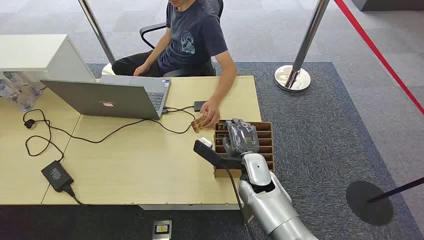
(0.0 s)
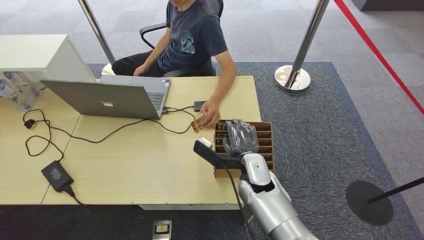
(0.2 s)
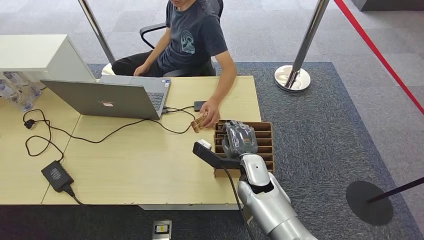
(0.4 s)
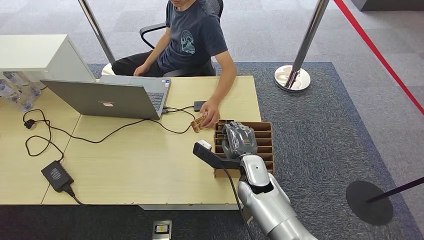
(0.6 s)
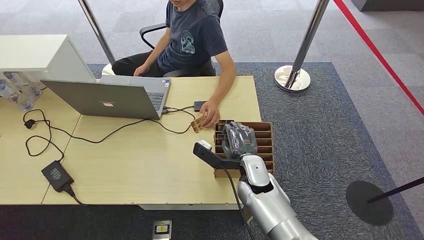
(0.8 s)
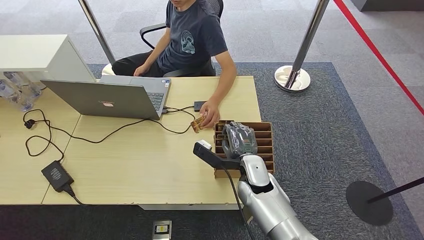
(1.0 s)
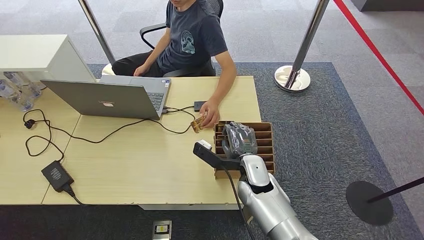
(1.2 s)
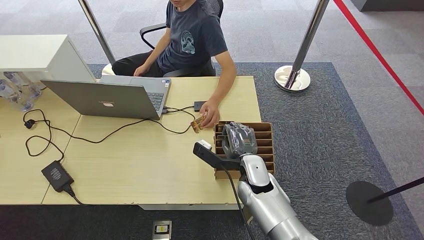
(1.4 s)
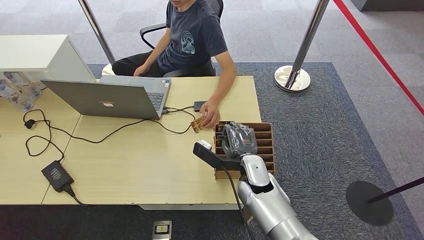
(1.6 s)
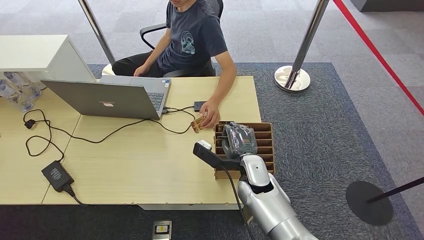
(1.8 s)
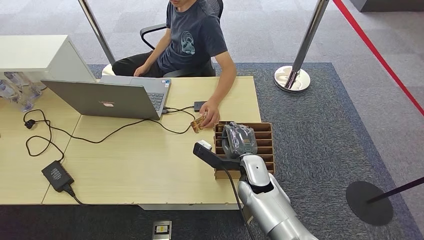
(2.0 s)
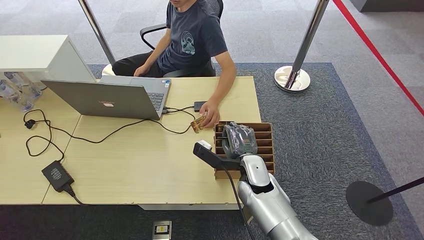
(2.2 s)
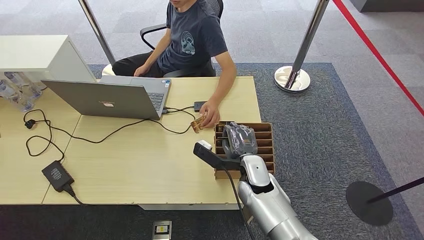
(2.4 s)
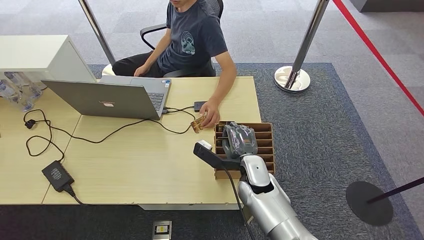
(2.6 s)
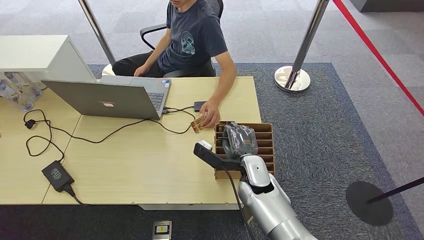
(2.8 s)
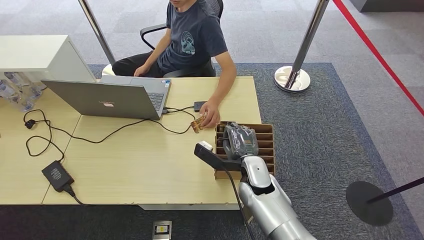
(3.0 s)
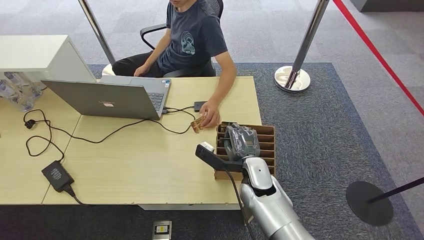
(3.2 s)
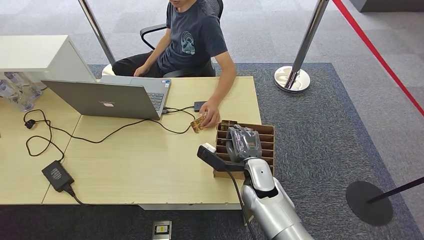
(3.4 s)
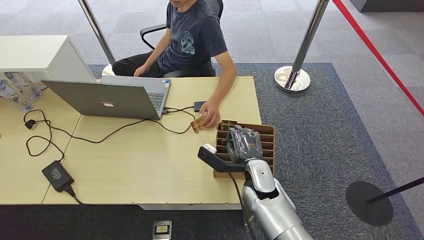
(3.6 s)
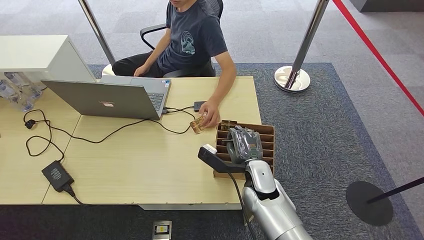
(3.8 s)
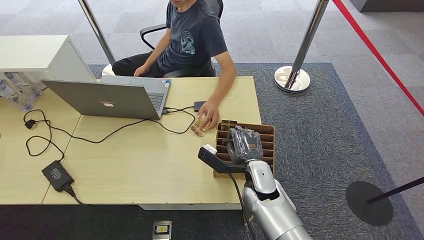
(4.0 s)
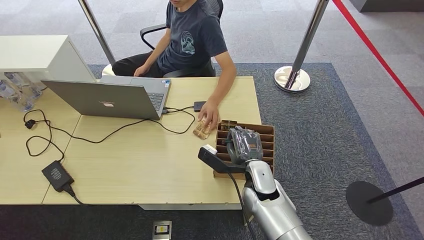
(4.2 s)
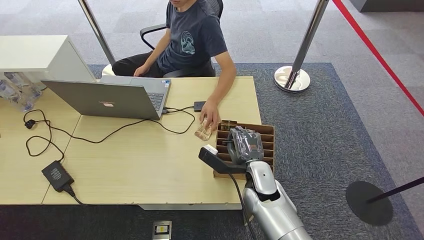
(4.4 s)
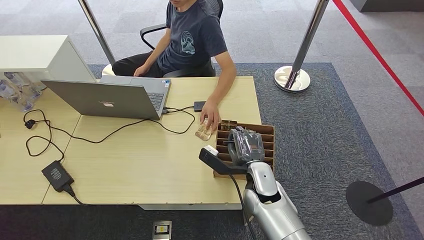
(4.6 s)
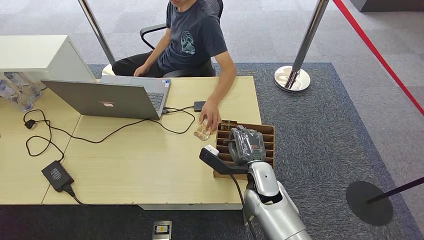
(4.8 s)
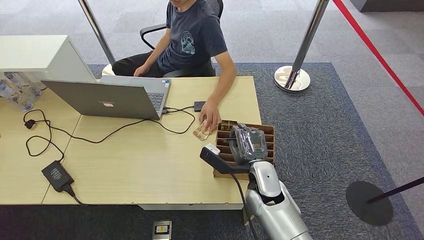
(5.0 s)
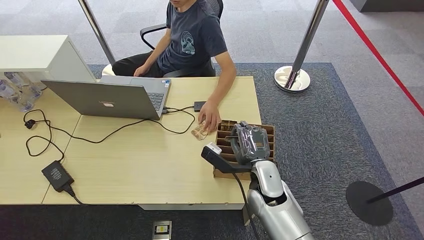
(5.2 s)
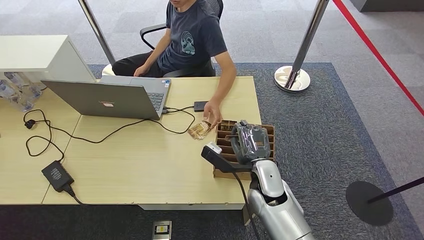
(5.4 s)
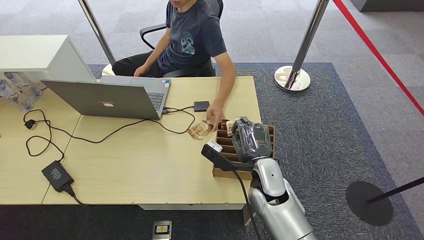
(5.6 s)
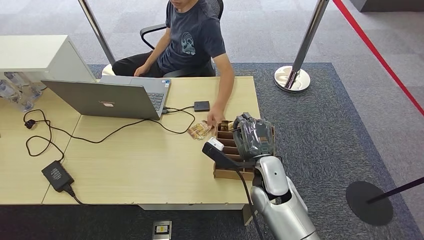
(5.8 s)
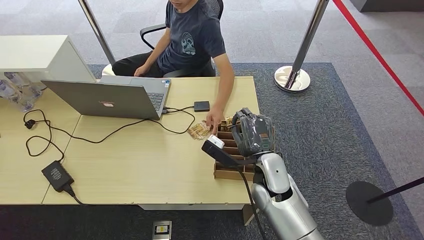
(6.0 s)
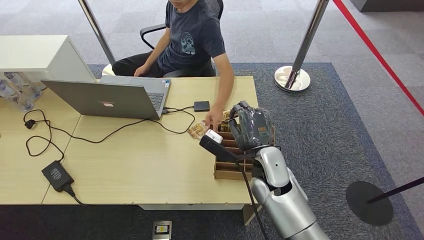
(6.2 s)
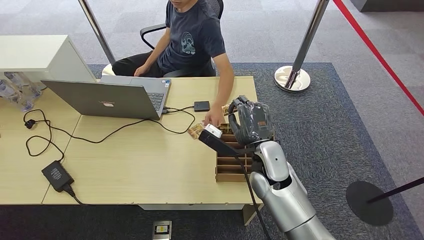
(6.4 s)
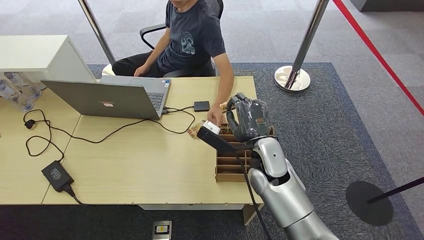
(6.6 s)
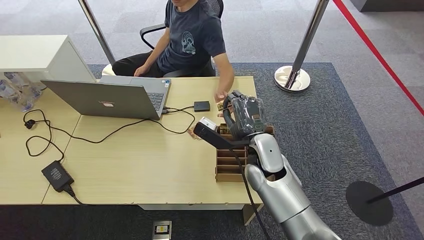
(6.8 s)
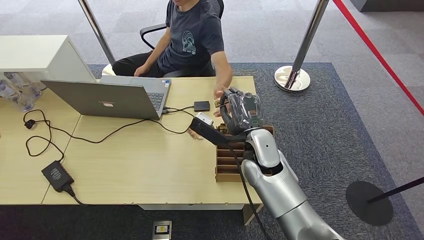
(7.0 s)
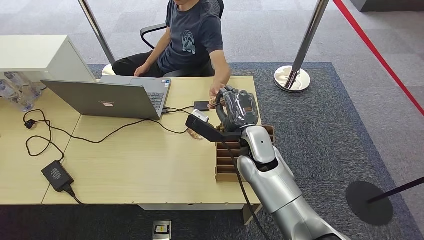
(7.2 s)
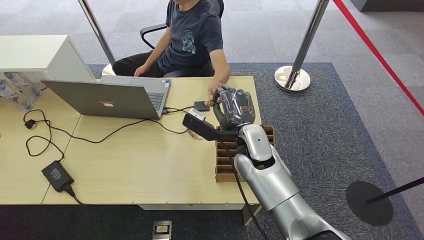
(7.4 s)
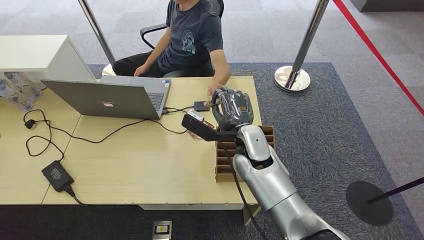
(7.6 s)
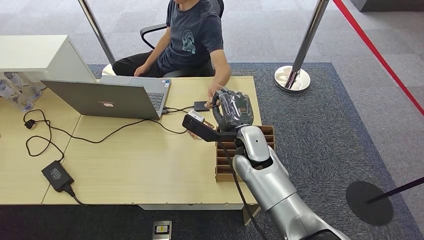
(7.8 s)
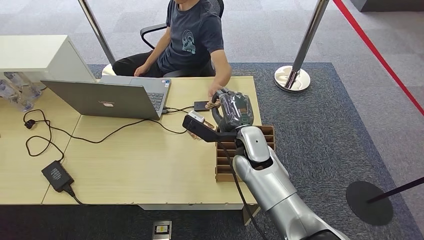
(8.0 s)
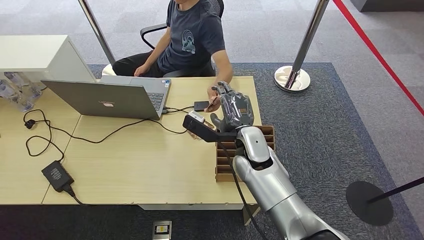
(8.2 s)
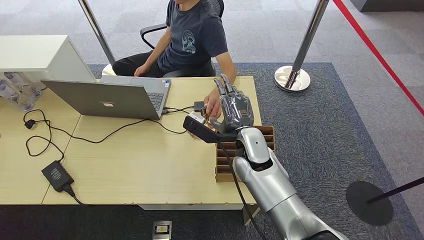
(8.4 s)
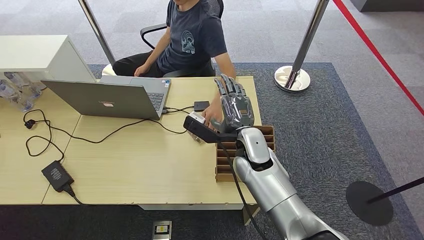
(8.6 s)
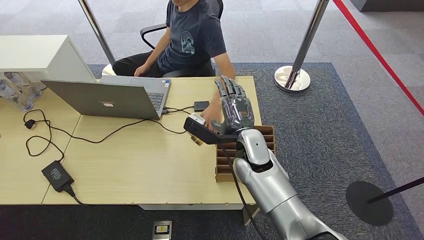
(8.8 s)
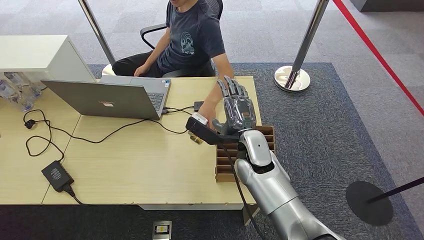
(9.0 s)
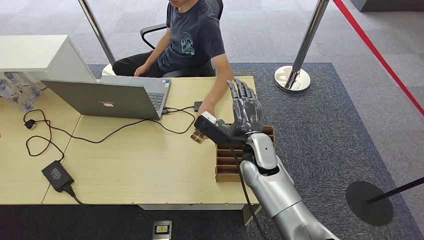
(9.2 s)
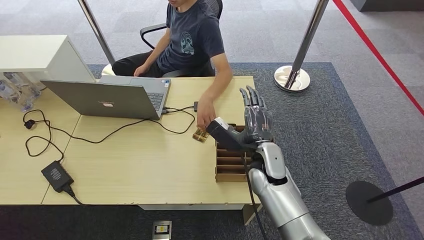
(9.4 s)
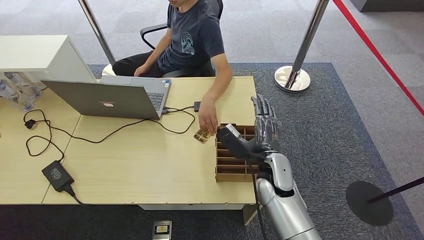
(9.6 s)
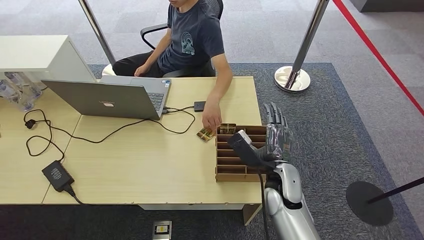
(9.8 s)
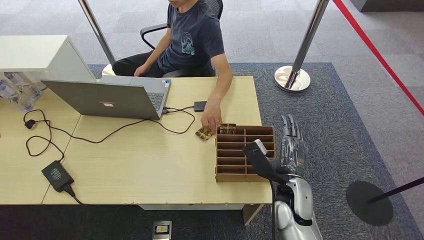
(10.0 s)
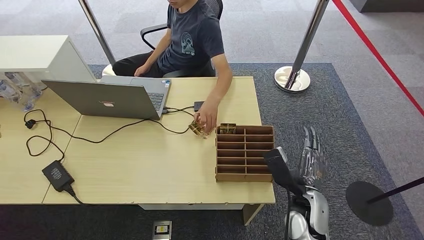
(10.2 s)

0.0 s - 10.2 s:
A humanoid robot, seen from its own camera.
Step, 0.0 s - 5.4 s: Pick up the room card from the card holder.
Step, 5.8 s - 10.2 s: Hand the room card to the target.
1.4 s - 3.0 s: The two hands keep their place.
3.0 s - 5.8 s: The hands move only a little.
5.8 s - 7.2 s: The right hand is displaced forward and upward by roughly 10 cm.
7.2 s - 8.8 s: The hands make only small movements.
8.8 s - 10.2 s: The right hand is displaced to the right, backward and downward by some 20 cm.

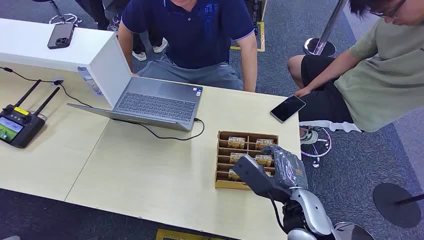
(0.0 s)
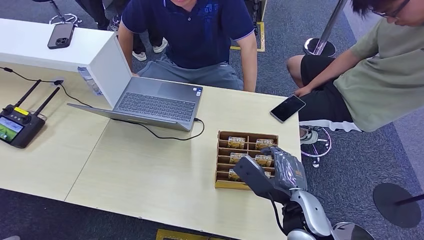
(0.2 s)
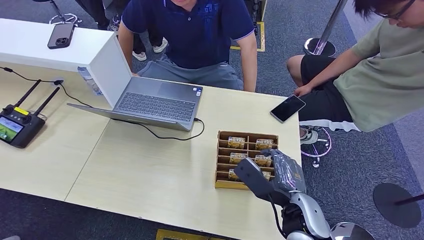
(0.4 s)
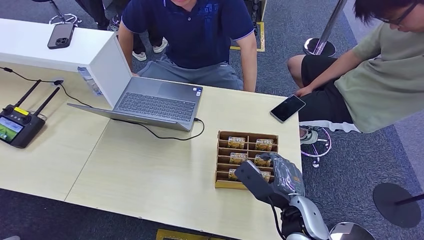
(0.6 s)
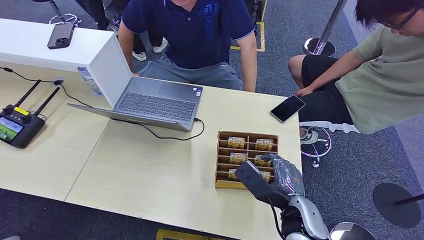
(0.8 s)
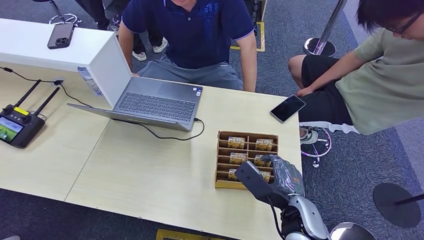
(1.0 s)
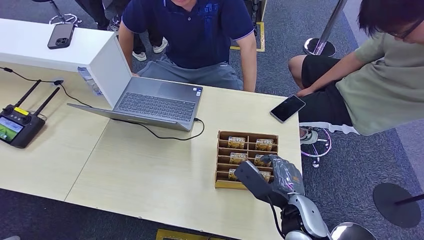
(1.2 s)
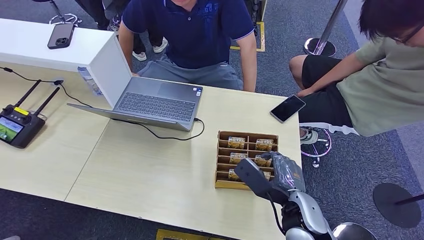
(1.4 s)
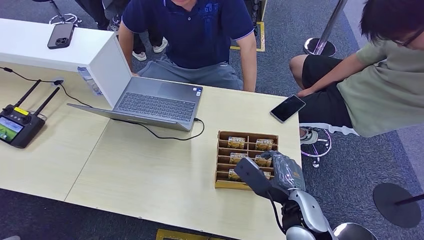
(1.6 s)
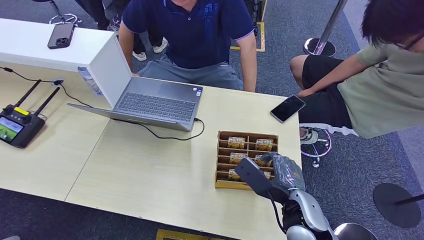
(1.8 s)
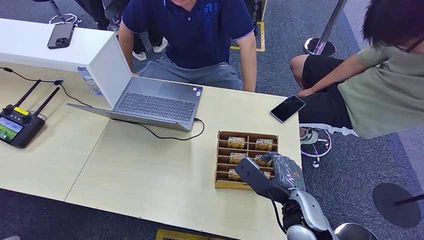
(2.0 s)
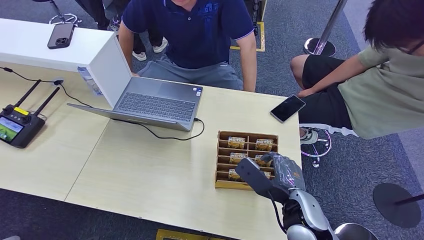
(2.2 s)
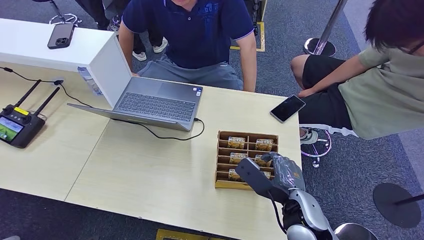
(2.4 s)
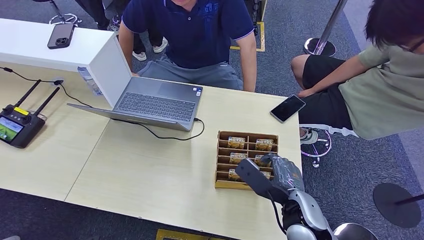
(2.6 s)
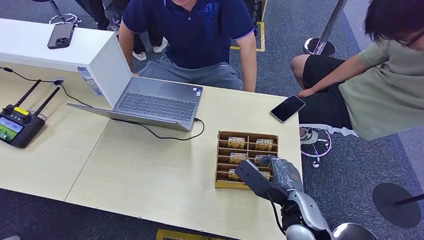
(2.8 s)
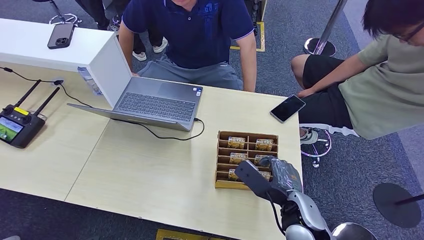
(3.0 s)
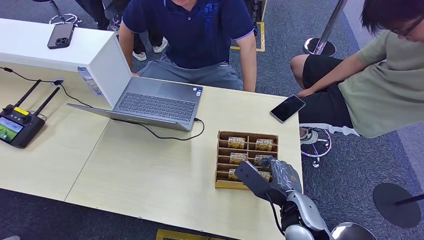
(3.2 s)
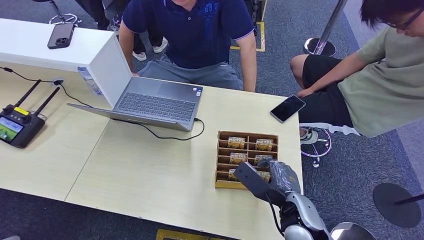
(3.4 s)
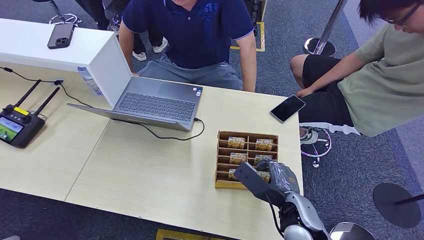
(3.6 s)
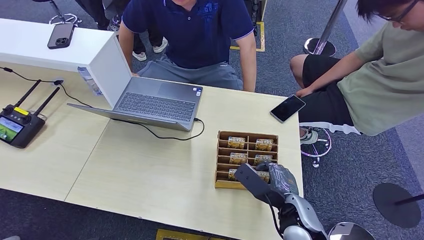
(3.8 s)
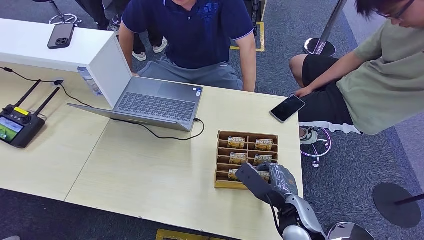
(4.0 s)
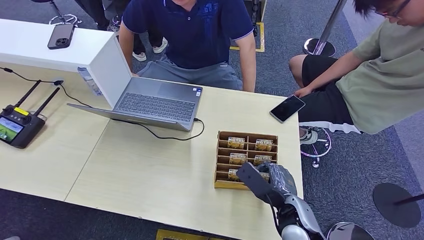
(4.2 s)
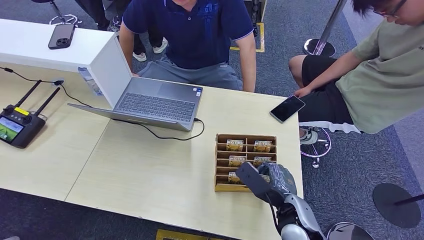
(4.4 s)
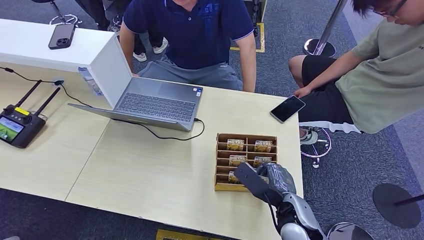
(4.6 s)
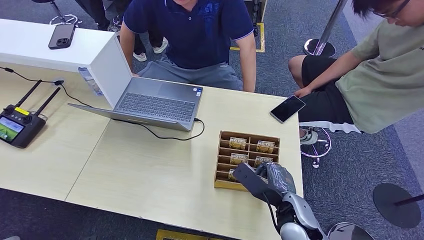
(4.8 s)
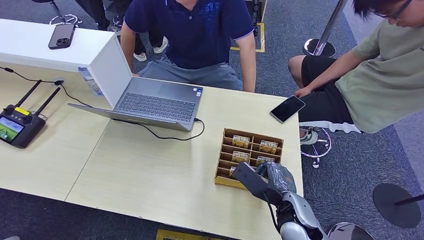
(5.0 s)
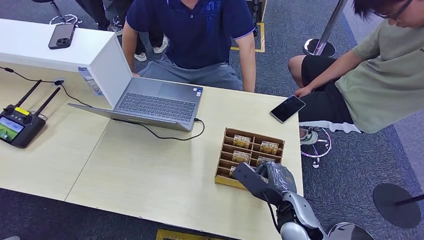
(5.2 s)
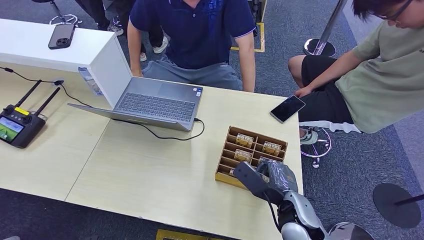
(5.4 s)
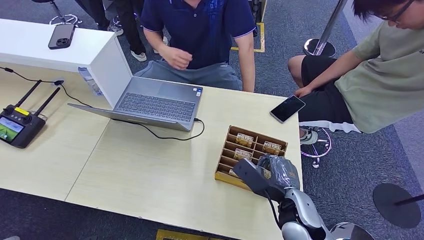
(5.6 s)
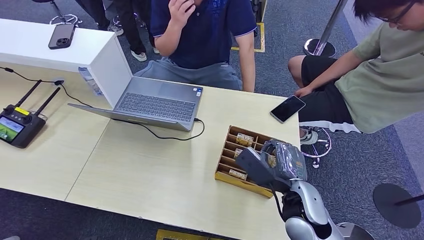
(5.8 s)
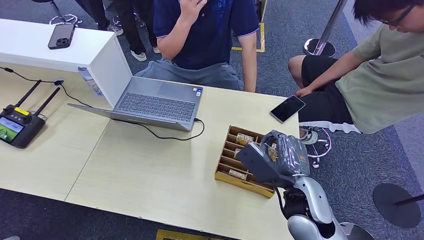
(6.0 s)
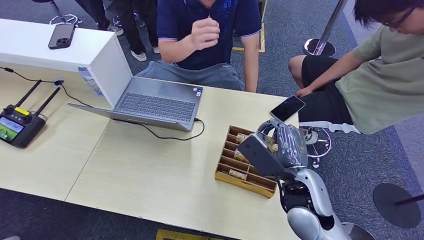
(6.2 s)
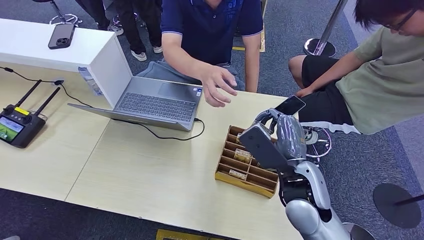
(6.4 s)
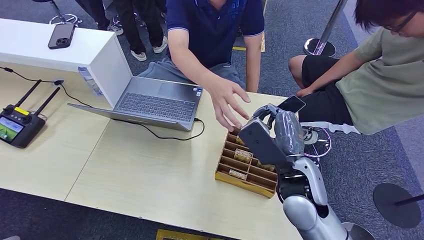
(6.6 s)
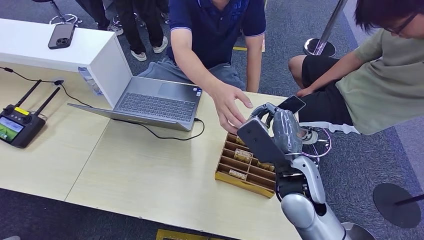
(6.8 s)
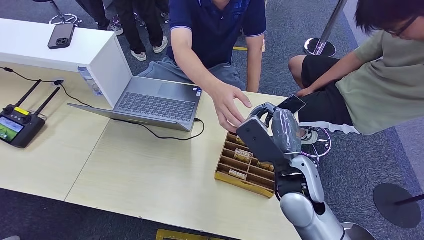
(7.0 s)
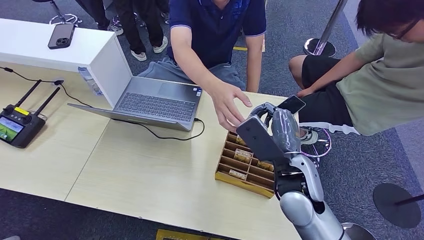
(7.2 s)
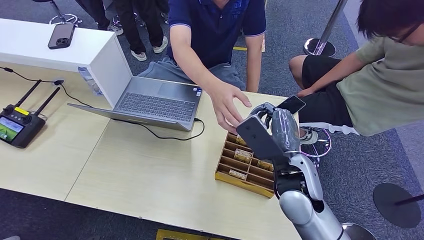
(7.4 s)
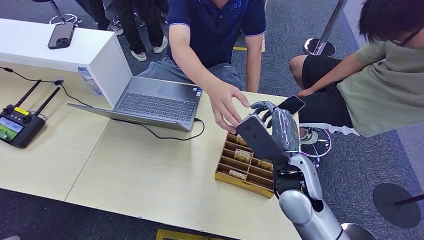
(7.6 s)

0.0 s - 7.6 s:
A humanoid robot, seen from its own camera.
Step, 0.0 s - 5.4 s: Pick up the room card from the card holder.
Step, 5.6 s - 7.6 s: Hand the room card to the target.
1.6 s - 4.6 s: The hands make only small movements.
4.6 s - 6.0 s: The right hand moves upward, about 10 cm.
6.0 s - 7.6 s: The right hand moves about 5 cm.
